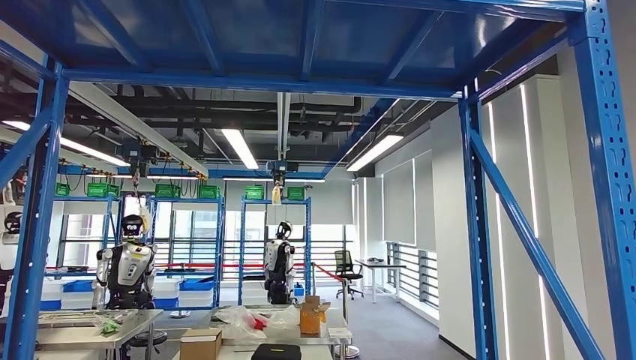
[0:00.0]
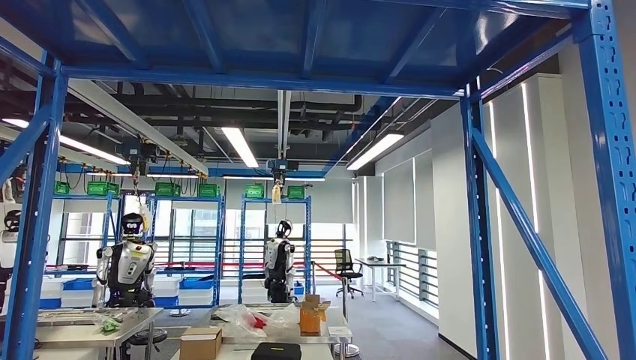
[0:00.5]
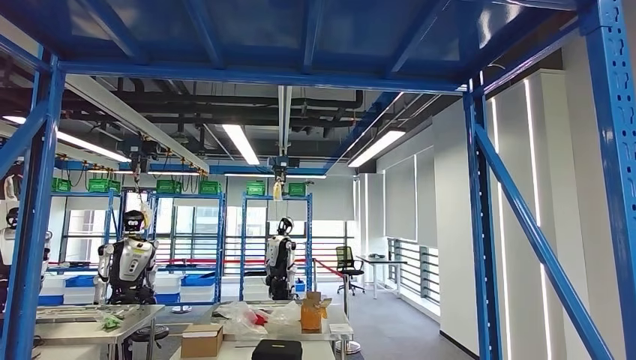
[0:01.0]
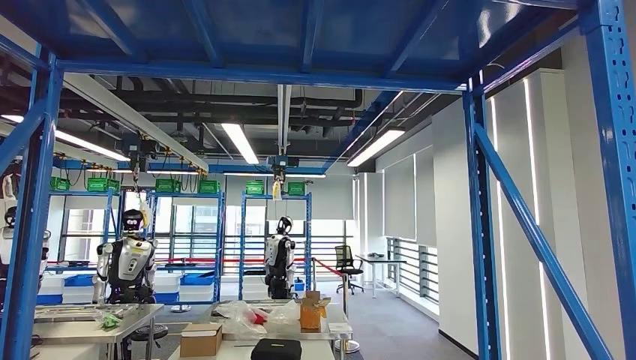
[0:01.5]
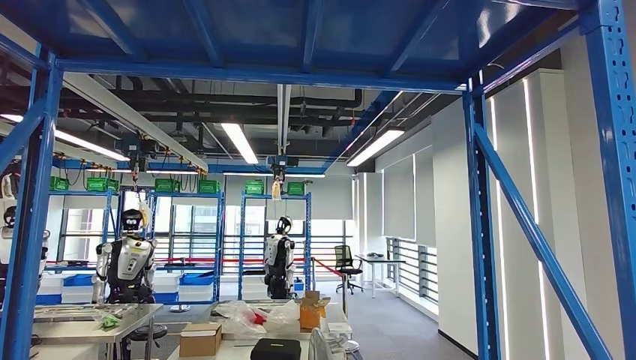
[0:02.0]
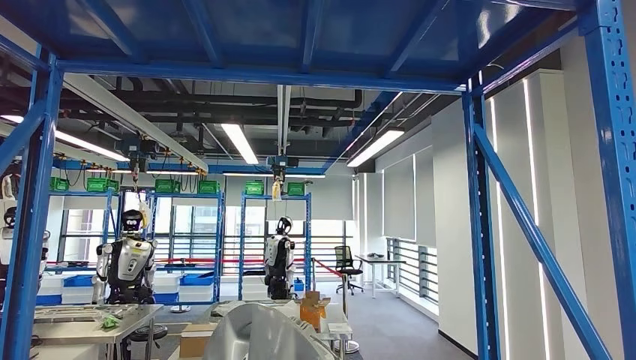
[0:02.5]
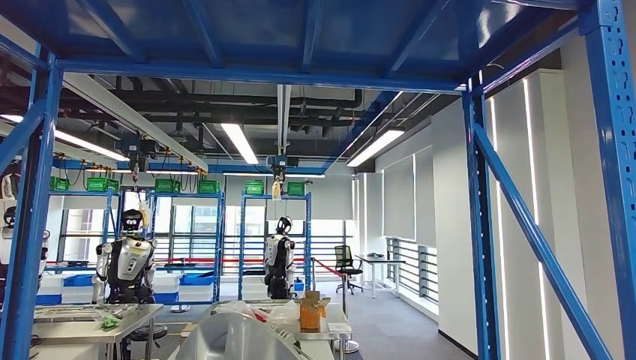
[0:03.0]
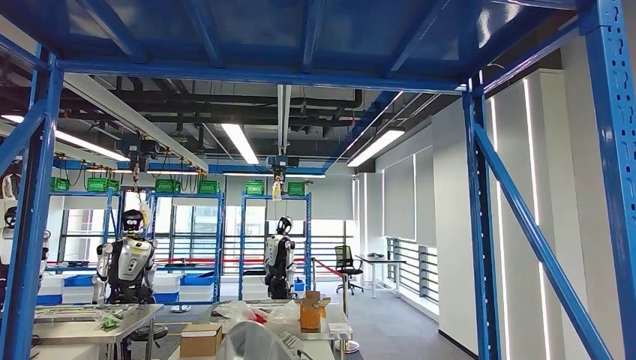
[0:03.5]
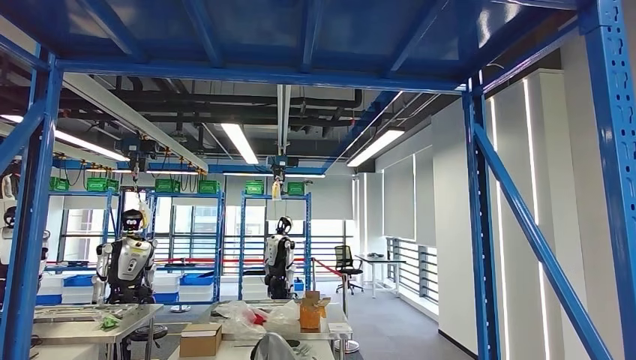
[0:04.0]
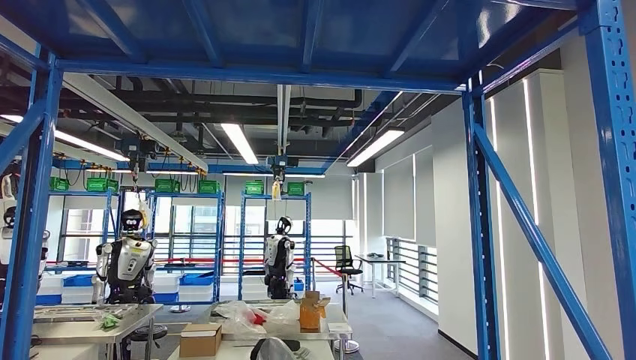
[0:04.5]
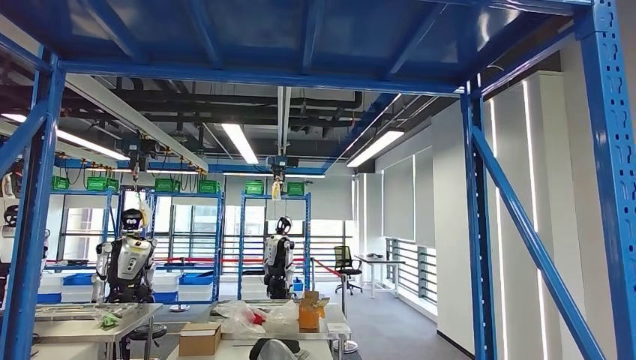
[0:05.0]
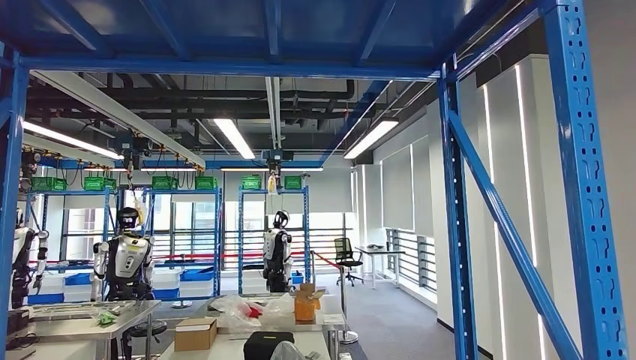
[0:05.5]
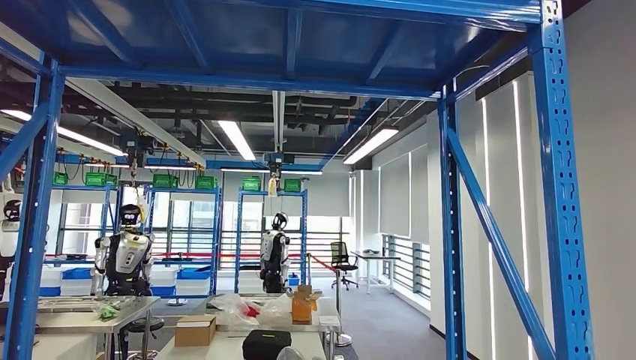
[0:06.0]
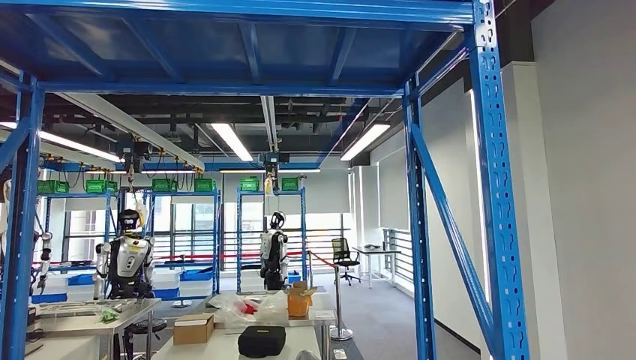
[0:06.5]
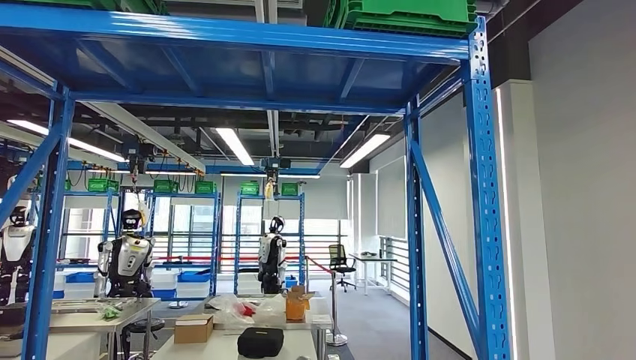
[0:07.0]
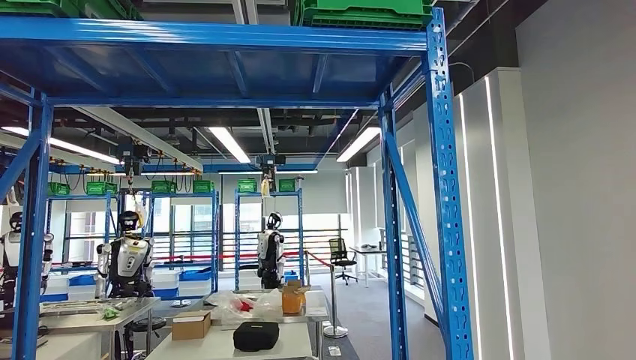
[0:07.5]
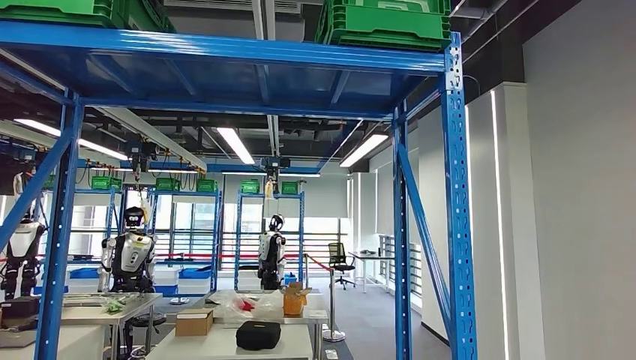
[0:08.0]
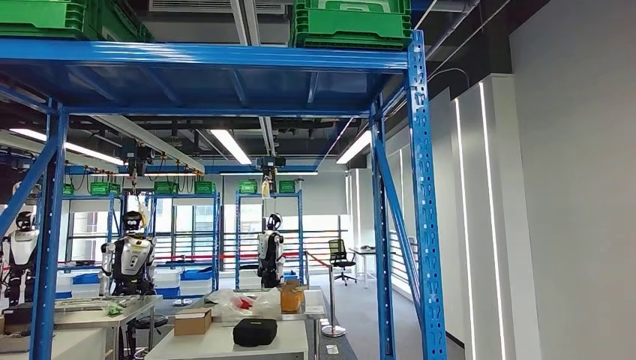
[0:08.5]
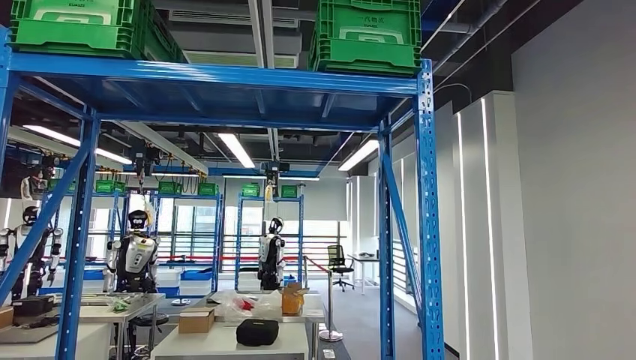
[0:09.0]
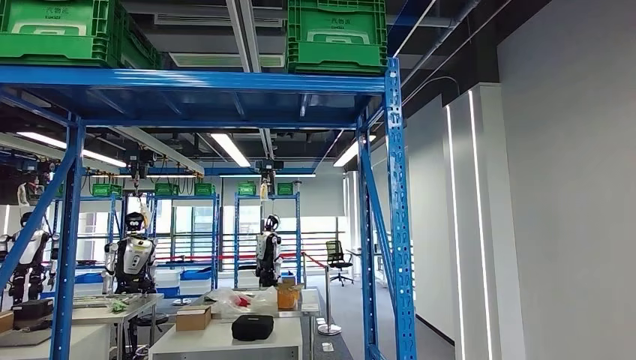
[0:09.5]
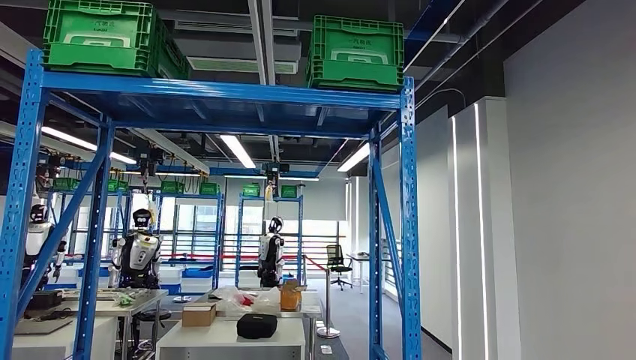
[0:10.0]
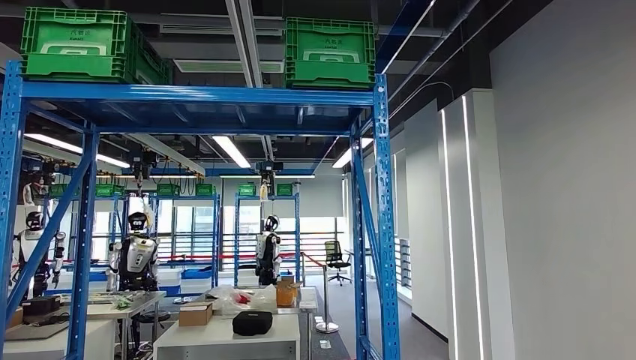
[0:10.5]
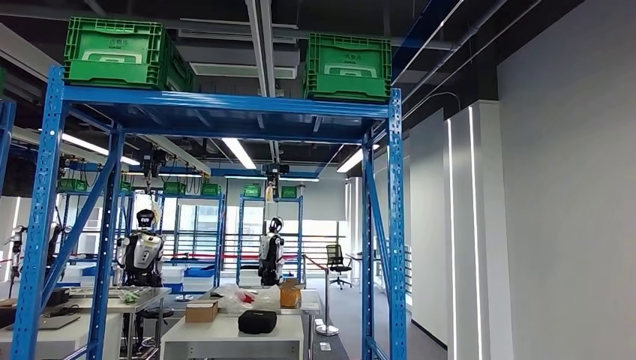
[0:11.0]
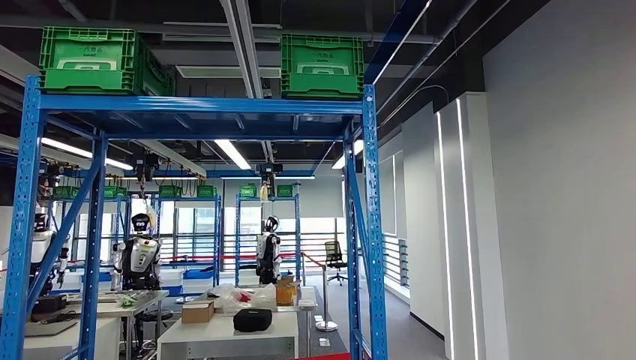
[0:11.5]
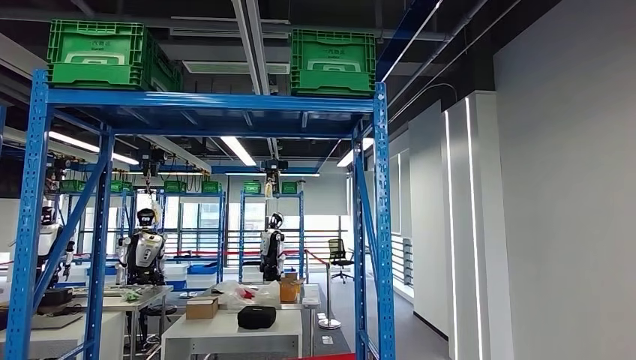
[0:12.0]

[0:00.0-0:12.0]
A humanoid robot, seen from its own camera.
Step, 0:00.0 to 0:04.0: Pick up the large material from the shelf.
0:02.0 to 0:04.0: The right hand ends up about 5 cm from where it was.

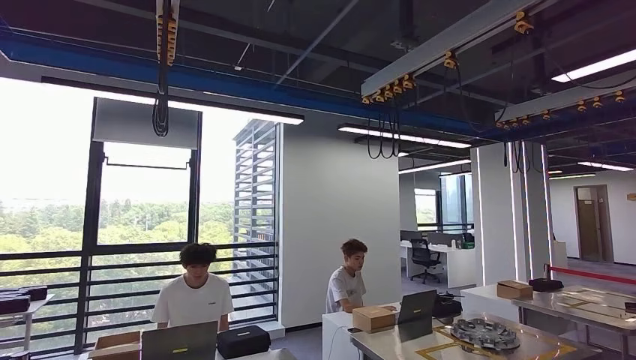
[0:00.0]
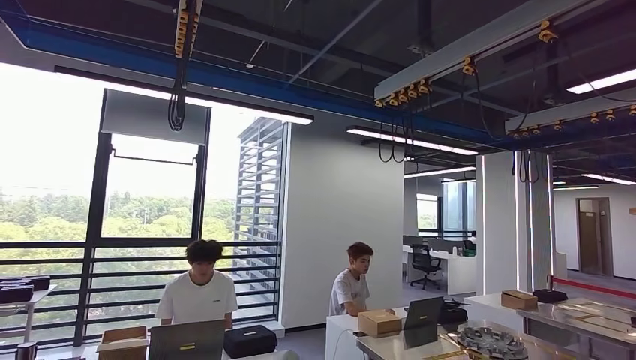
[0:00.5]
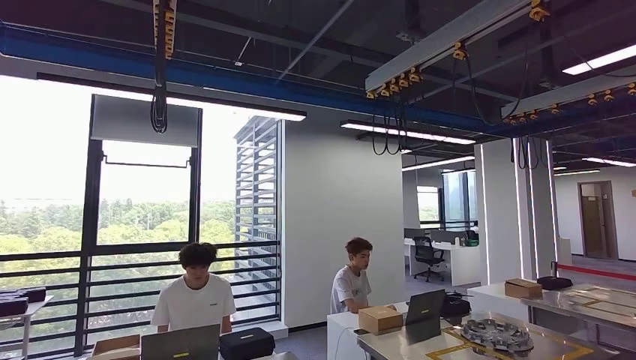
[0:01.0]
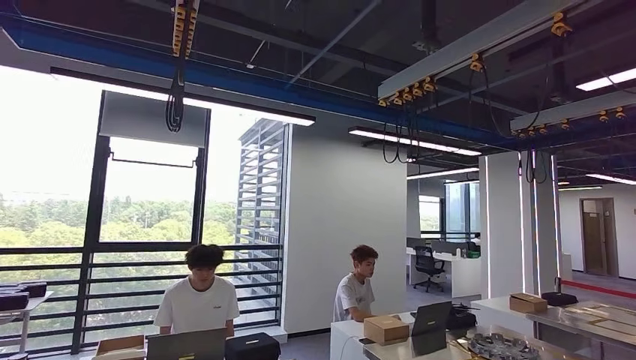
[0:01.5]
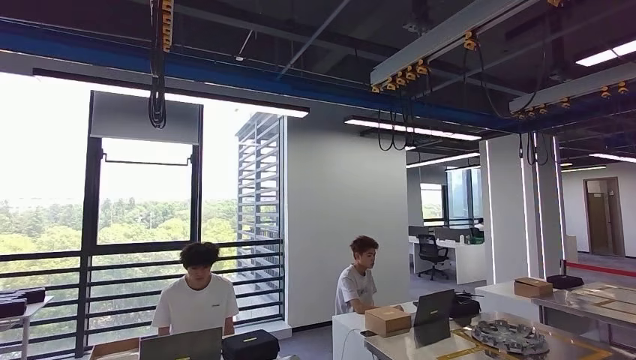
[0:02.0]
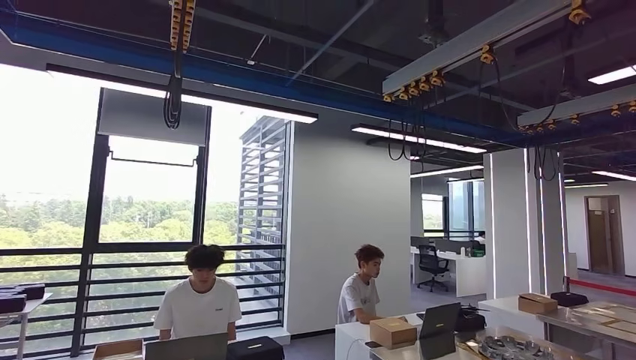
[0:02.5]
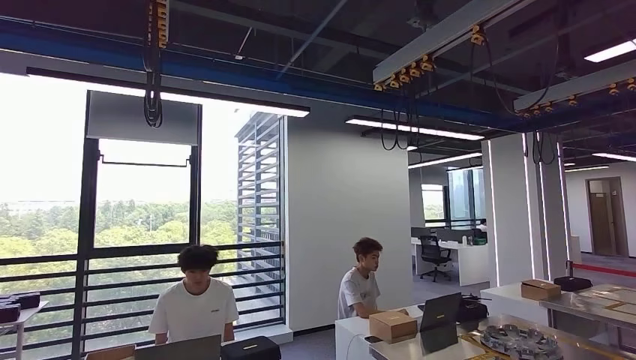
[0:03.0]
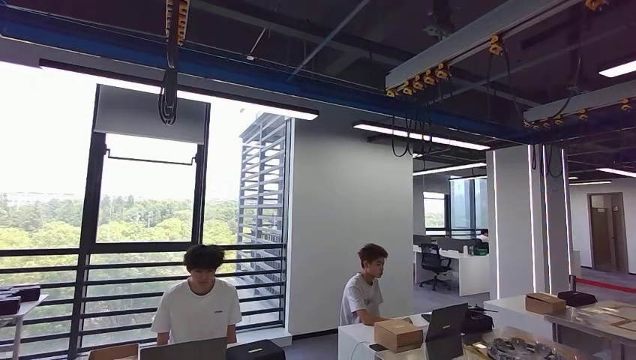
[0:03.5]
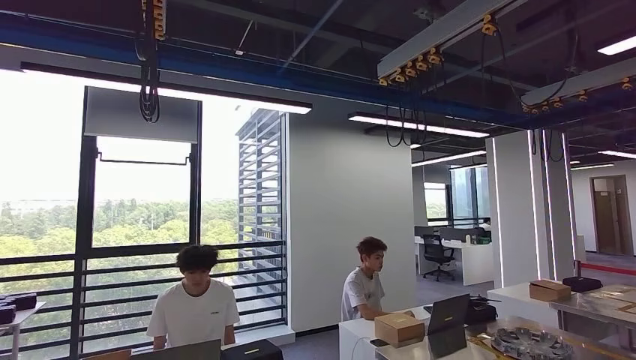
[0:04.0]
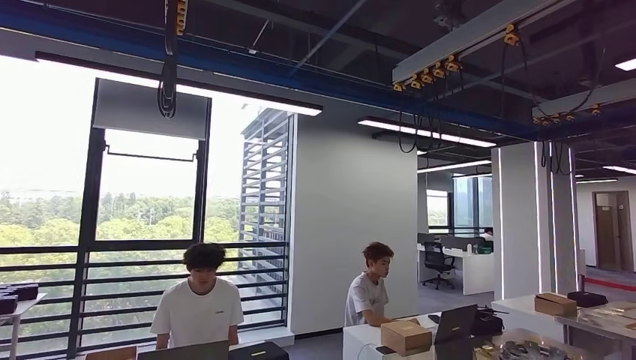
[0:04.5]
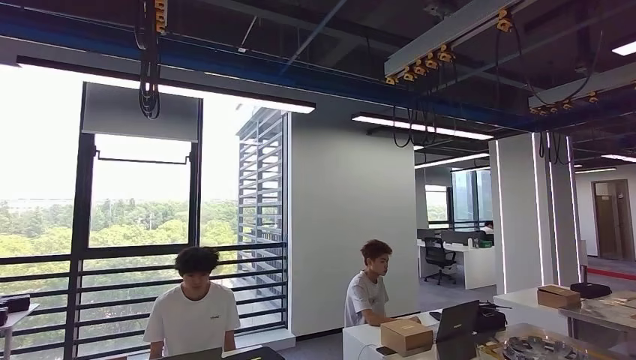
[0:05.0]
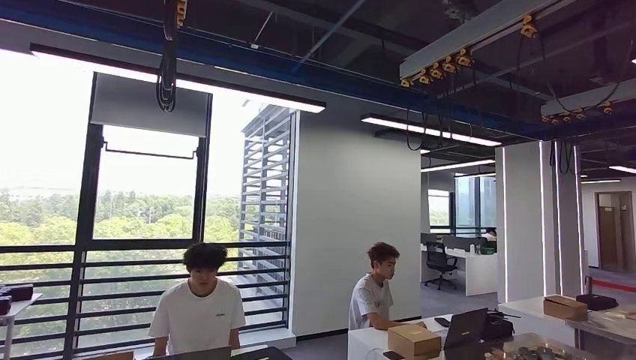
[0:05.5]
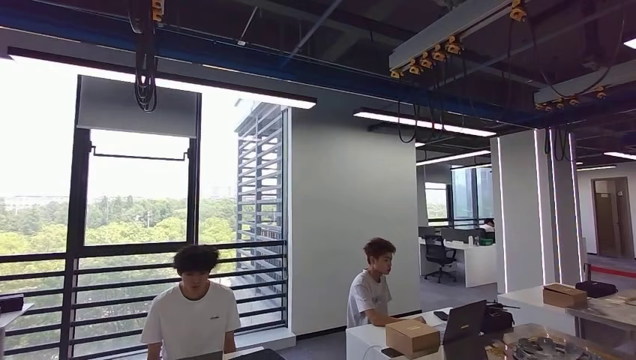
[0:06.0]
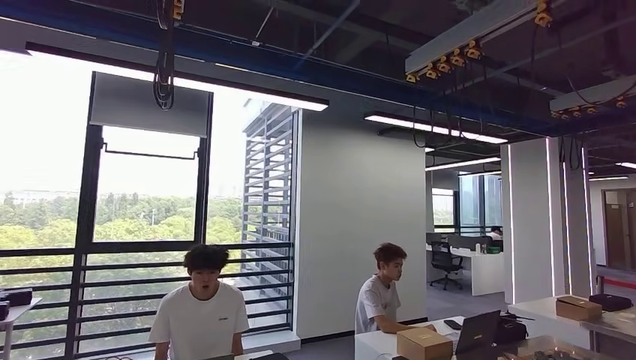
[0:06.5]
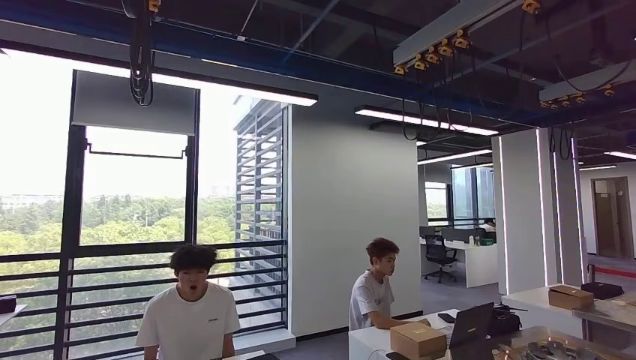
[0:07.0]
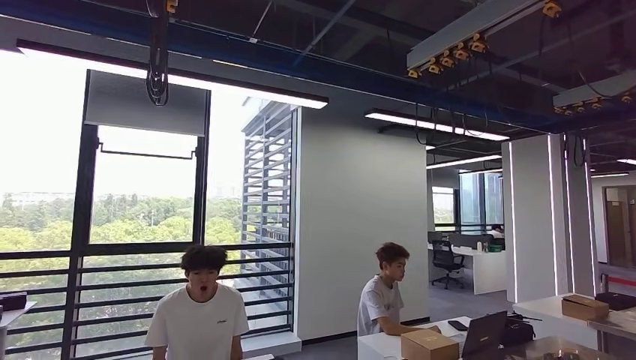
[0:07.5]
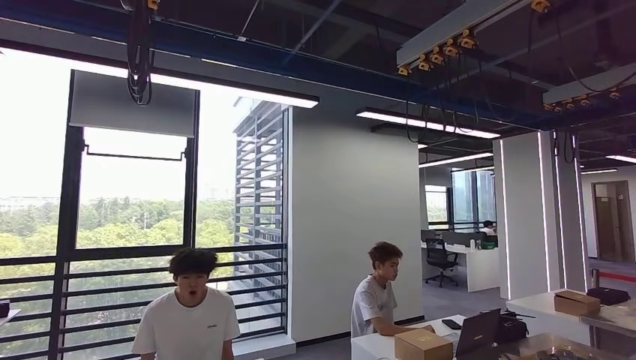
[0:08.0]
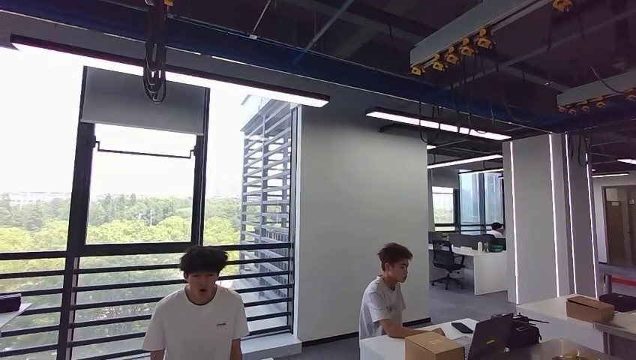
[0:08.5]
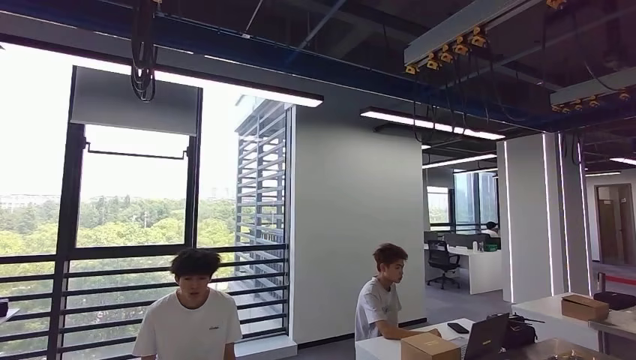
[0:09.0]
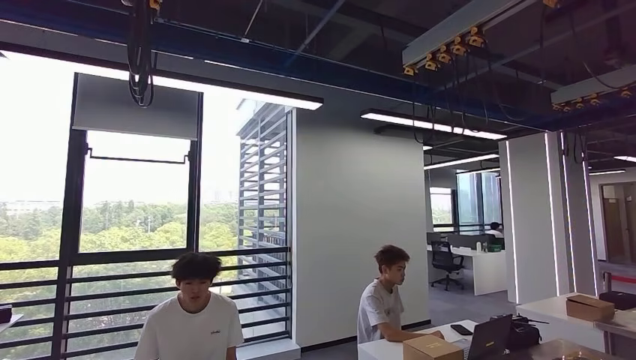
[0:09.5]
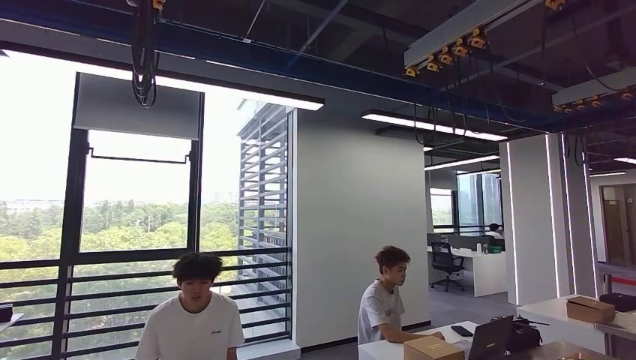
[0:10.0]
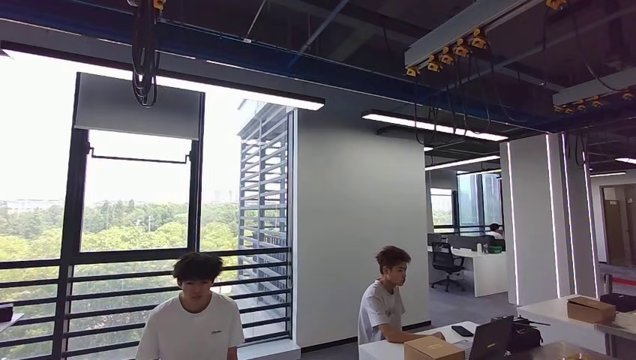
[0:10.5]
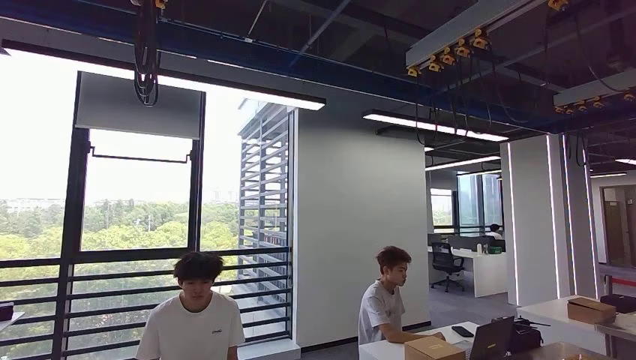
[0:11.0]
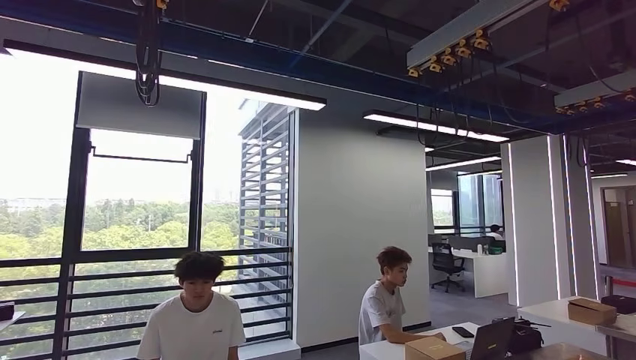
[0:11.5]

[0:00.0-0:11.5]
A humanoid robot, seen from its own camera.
0:09.5 to 0:11.5: The right hand moves forward, downward and to the left, roughly 20 cm.
